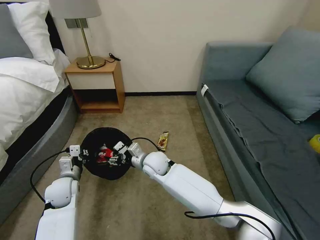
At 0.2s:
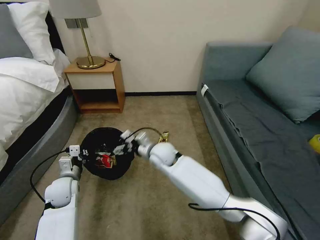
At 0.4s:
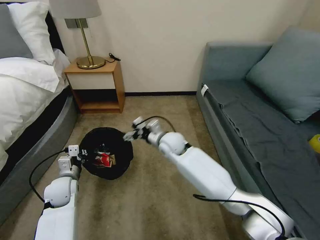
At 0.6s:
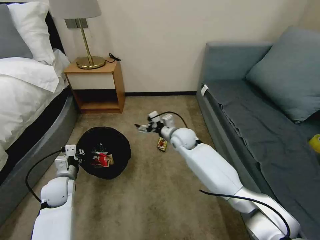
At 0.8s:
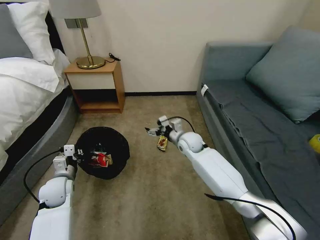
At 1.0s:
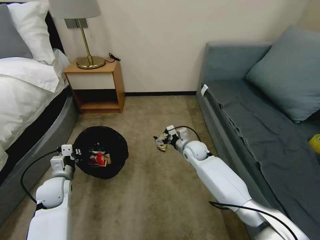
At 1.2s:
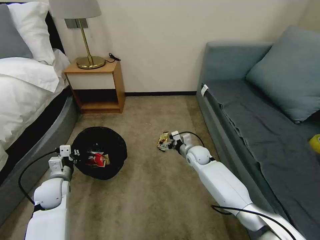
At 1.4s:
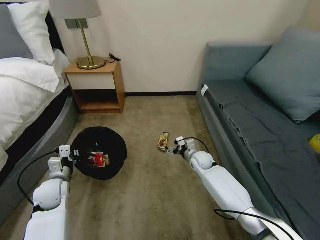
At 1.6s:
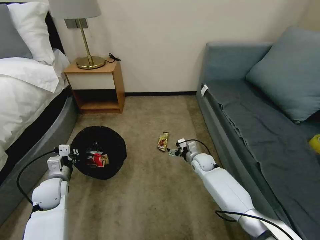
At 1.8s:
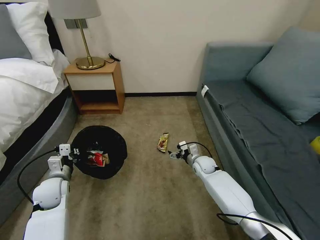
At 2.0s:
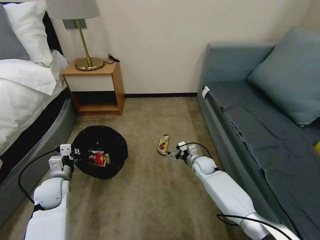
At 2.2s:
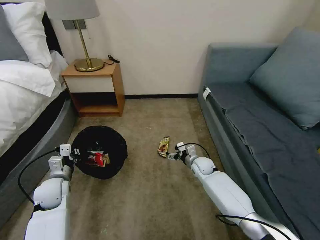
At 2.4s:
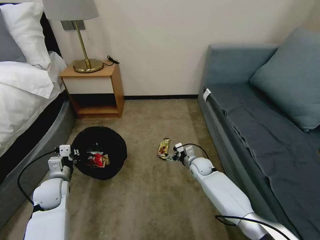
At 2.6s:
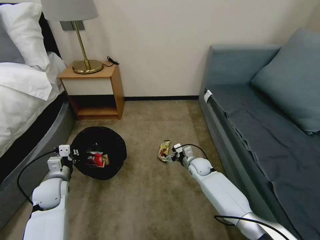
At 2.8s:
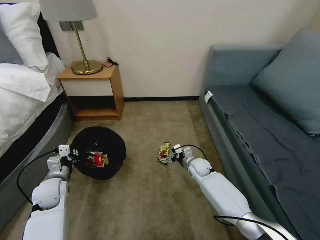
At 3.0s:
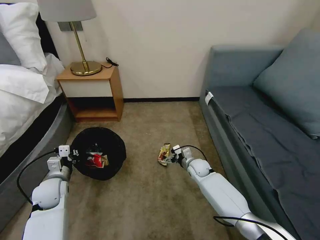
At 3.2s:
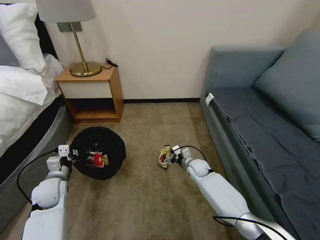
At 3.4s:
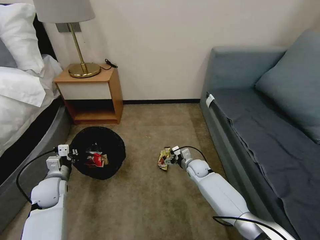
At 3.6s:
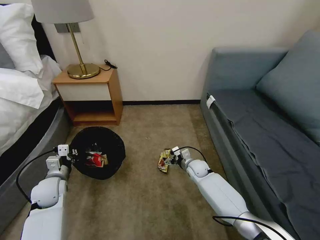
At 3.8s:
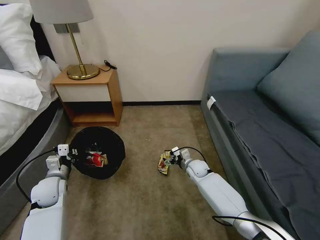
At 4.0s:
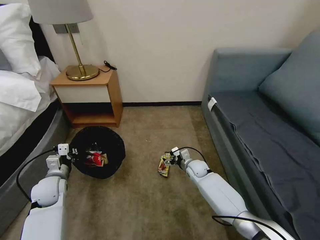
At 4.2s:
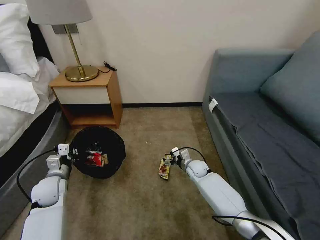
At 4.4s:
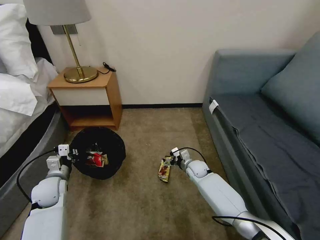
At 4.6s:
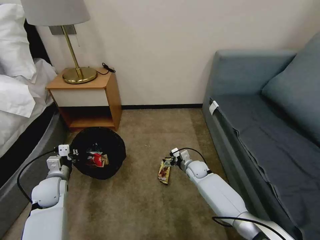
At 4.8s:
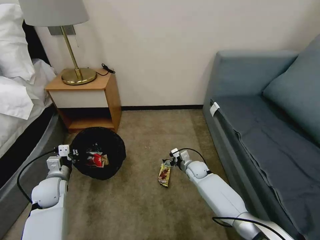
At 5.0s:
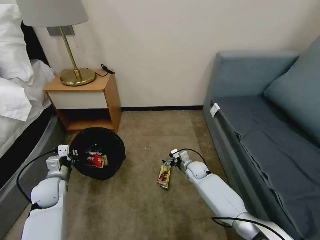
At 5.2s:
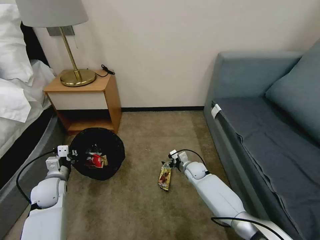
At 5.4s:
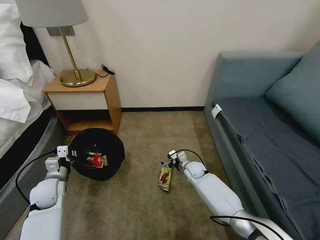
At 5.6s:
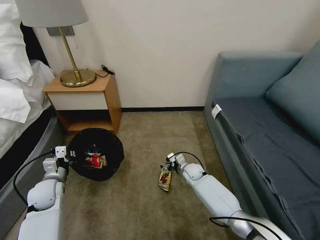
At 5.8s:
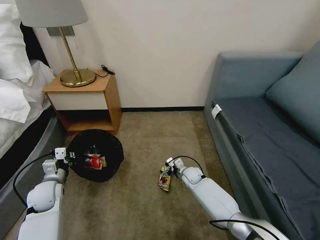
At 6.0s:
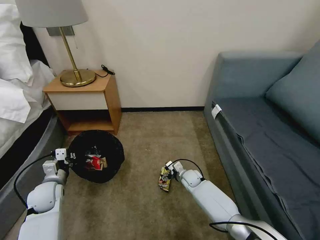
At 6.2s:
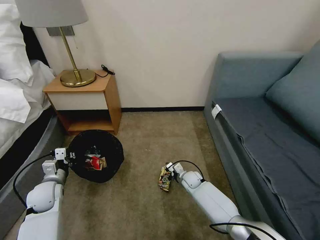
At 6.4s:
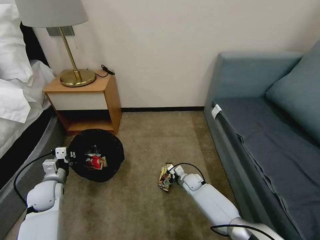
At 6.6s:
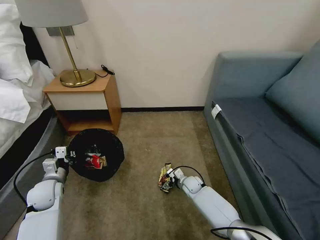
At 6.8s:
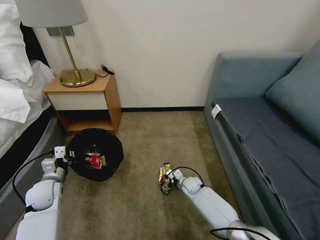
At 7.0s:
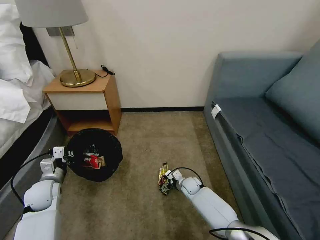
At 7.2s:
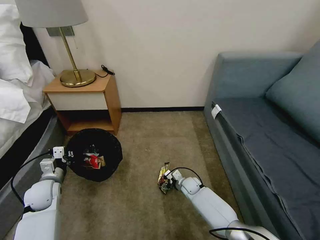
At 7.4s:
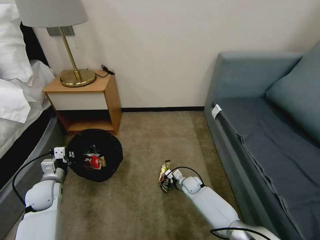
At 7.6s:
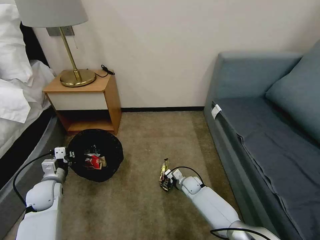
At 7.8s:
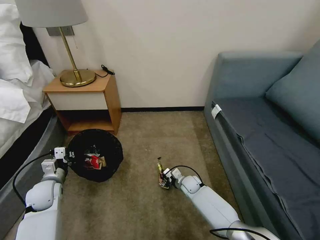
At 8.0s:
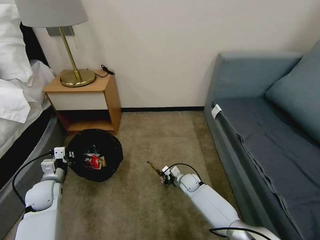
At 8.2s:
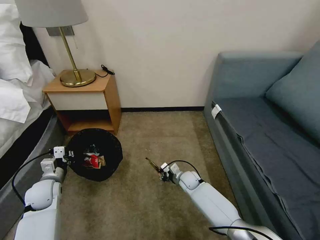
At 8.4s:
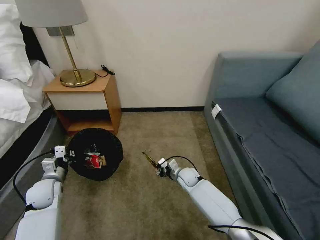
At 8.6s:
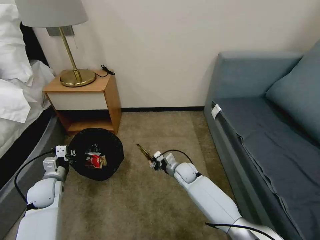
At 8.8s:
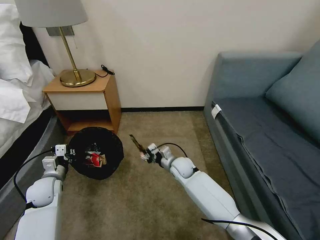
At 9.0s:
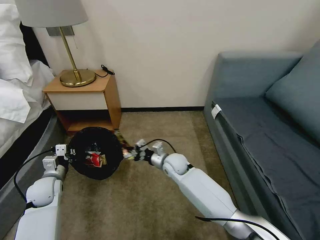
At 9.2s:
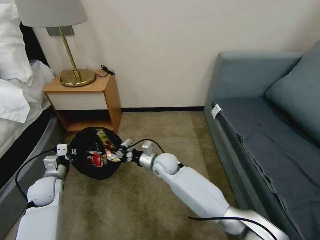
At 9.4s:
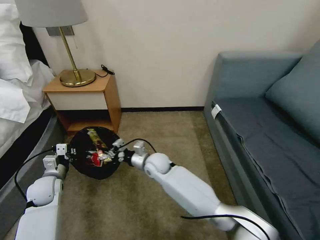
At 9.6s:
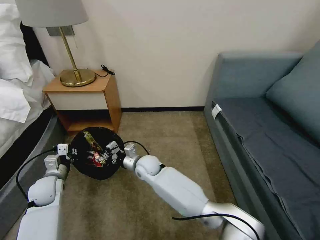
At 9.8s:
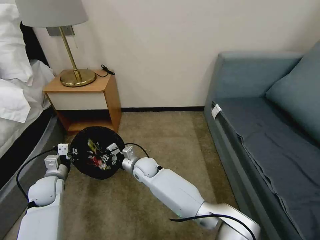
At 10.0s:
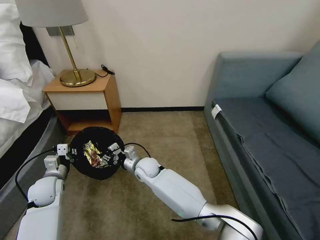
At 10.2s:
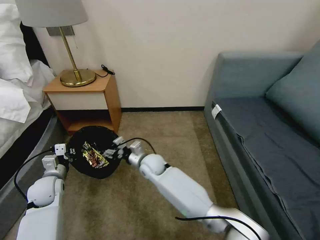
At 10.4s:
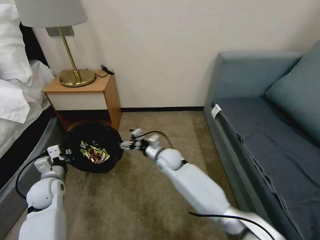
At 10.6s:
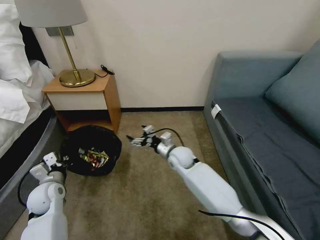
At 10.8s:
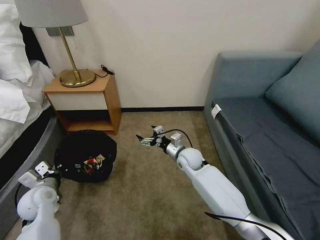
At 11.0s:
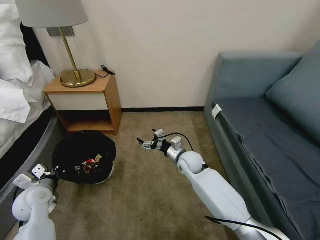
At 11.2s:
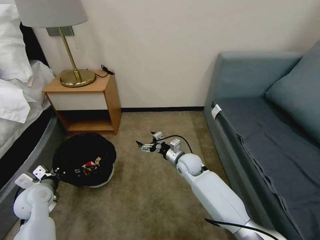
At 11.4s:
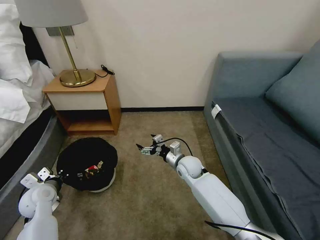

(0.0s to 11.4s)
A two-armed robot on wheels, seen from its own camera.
Task of the whole recording: Pick up the trash bin, then pick up the garbage on the floor and place it into the trash bin.
0.0s - 1.4s: The right gripper is displaced to the right and downward by approximately 20 cm.
1.4s - 4.2s: There are only small adjustments of the grippers.
4.2s - 5.6s: The grippers make only small movements.
5.6s - 7.2s: The right gripper heads downward, covering about 5 cm.
7.2s - 8.6s: The right gripper heads upward, covering about 10 cm, and closes up.
8.6s - 10.0s: The right gripper moves to the left, about 15 cm, and opens up.
10.0s - 11.4s: The right gripper is displaced to the right by roughly 15 cm, and opens its fingers.

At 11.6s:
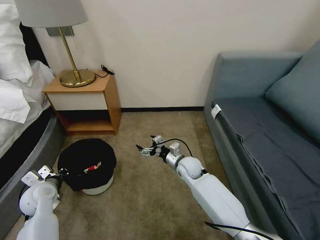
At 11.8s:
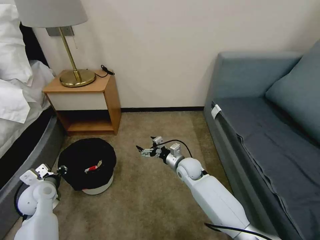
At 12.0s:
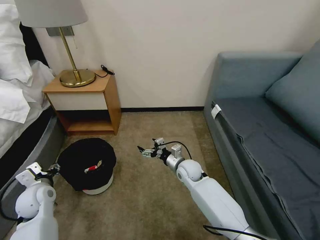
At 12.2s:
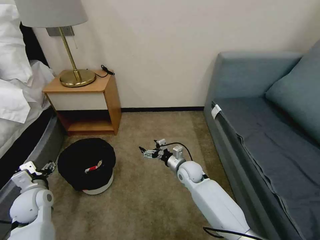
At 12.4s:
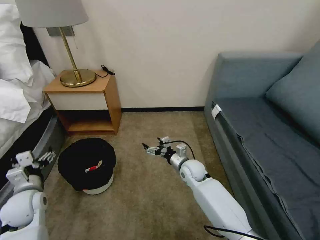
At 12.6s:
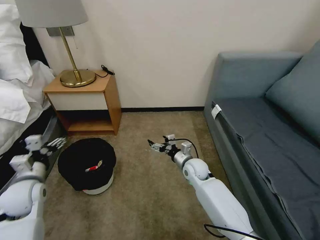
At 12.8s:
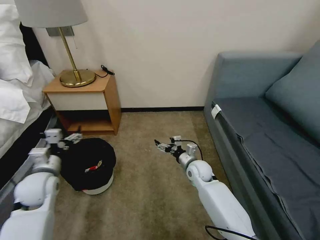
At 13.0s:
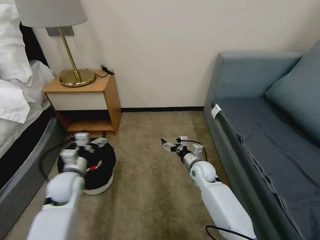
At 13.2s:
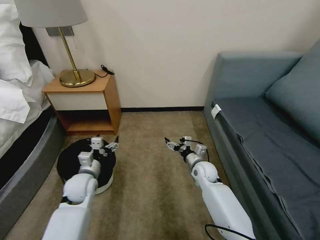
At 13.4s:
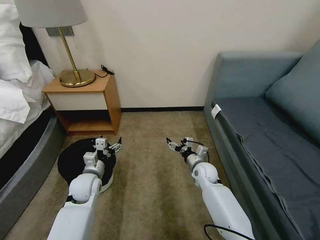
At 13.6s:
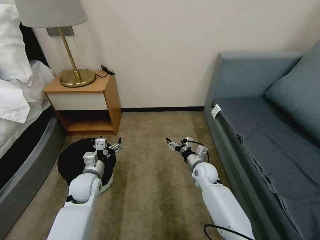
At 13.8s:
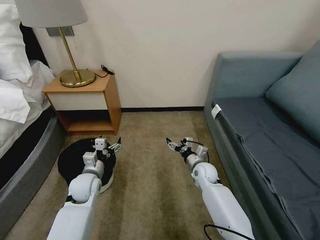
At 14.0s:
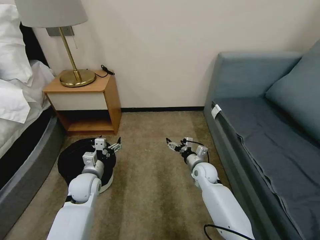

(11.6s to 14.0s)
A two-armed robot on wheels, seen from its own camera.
Task of the whole recording: Pick up the trash bin, then pick up the garbage on the floor and place it into the trash bin.
11.6s - 12.8s: The left gripper moves upward, some 5 cm, and opens up.
12.8s - 14.0s: The left gripper goes approximately 10 cm to the right and downward.
